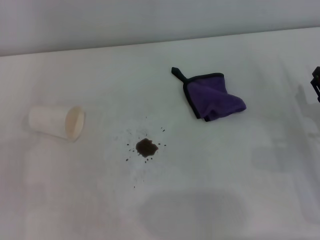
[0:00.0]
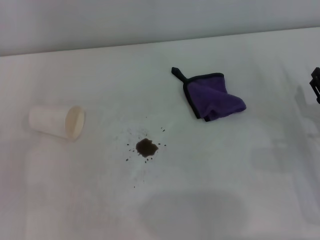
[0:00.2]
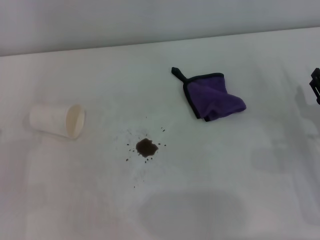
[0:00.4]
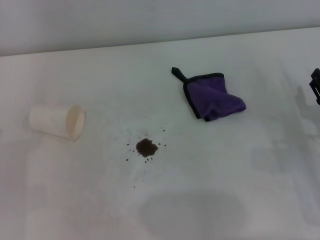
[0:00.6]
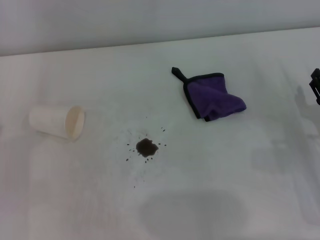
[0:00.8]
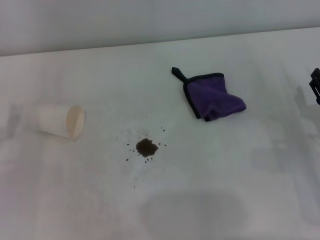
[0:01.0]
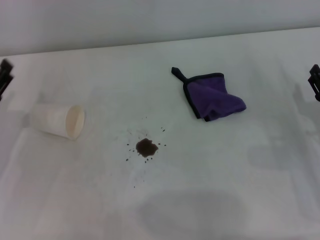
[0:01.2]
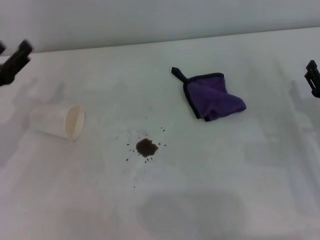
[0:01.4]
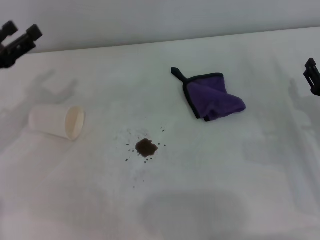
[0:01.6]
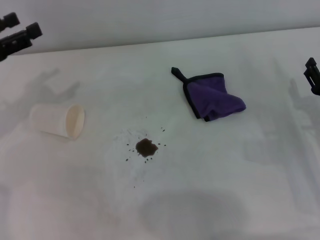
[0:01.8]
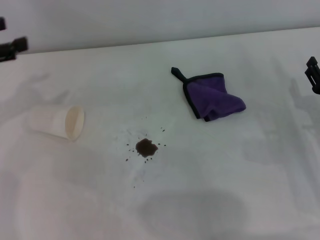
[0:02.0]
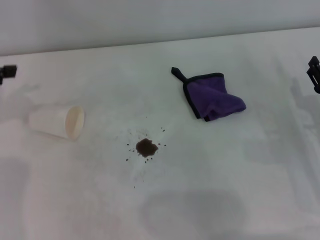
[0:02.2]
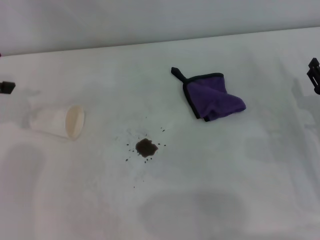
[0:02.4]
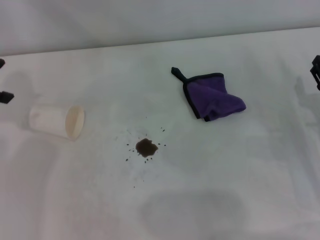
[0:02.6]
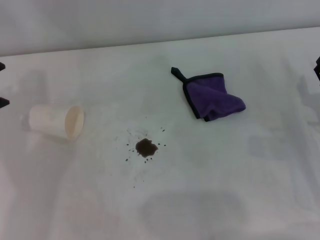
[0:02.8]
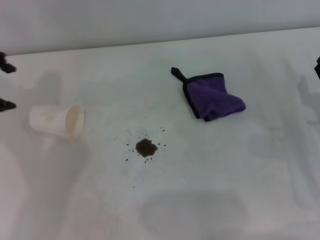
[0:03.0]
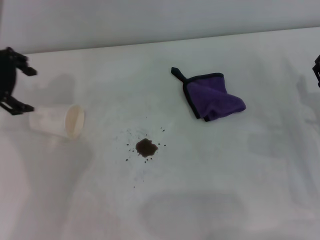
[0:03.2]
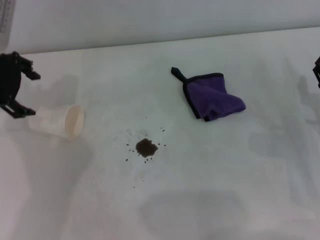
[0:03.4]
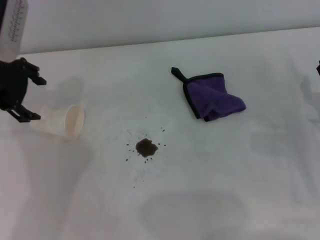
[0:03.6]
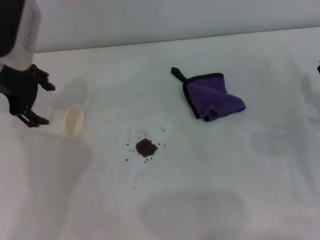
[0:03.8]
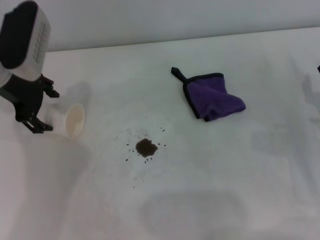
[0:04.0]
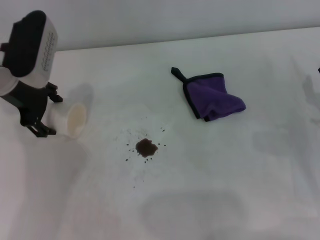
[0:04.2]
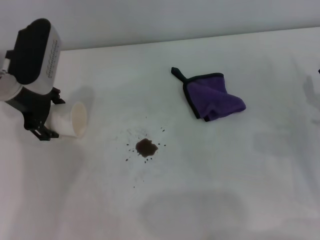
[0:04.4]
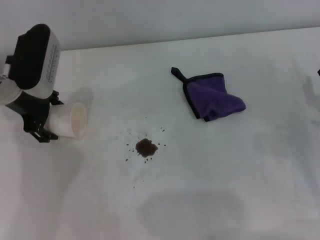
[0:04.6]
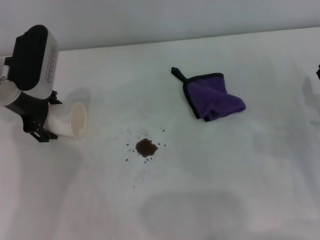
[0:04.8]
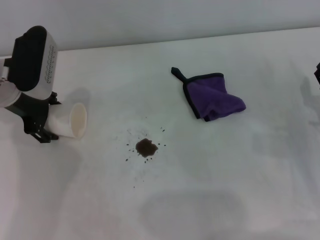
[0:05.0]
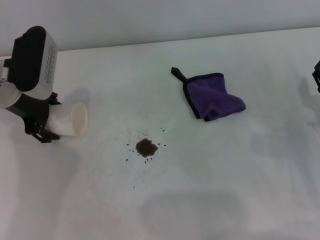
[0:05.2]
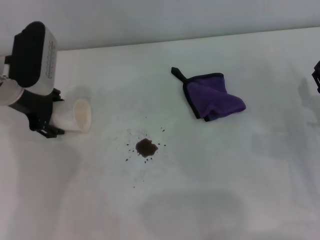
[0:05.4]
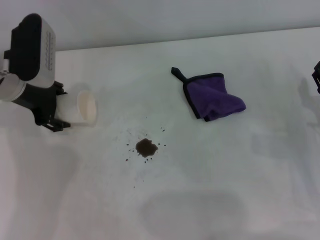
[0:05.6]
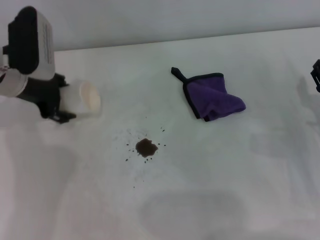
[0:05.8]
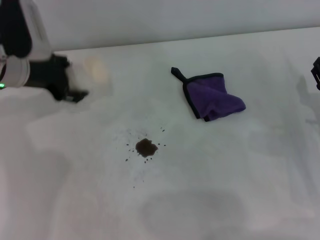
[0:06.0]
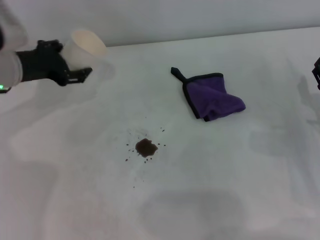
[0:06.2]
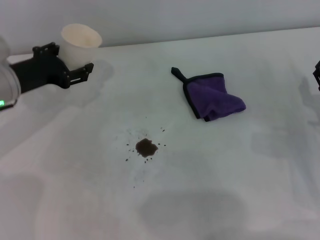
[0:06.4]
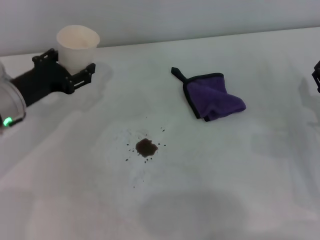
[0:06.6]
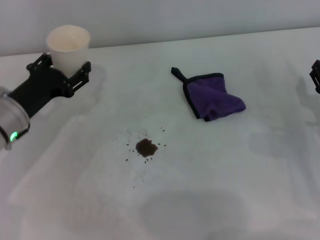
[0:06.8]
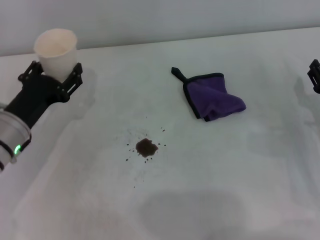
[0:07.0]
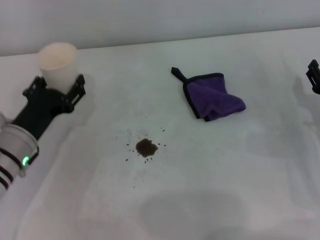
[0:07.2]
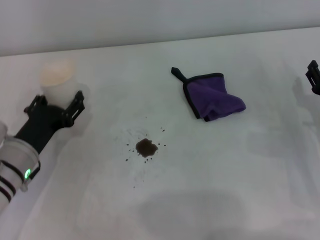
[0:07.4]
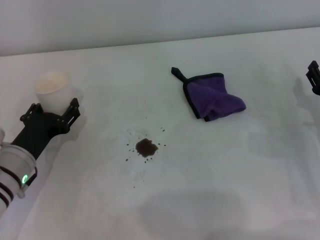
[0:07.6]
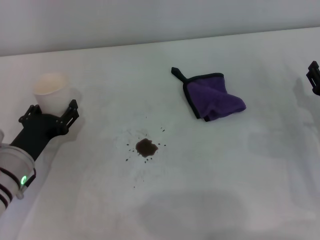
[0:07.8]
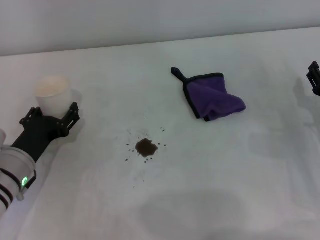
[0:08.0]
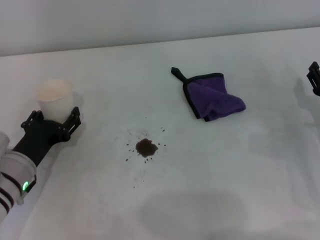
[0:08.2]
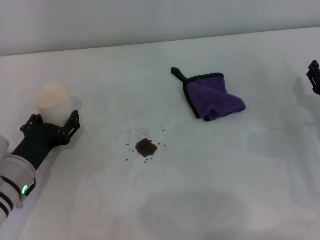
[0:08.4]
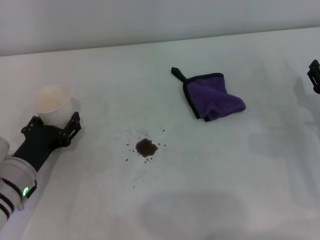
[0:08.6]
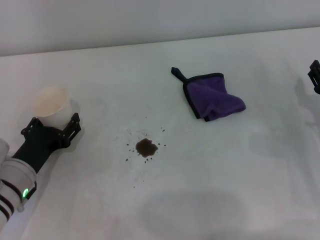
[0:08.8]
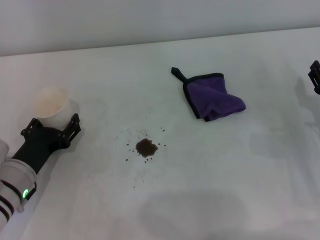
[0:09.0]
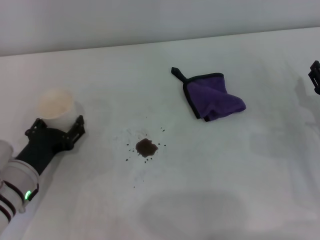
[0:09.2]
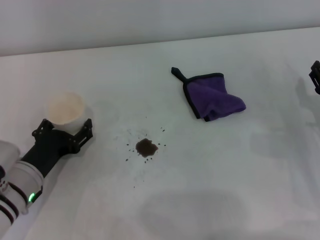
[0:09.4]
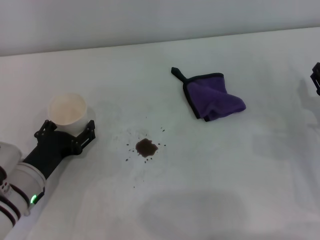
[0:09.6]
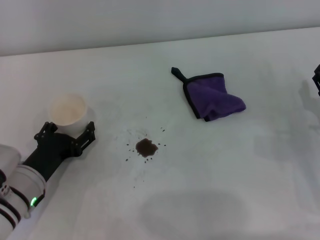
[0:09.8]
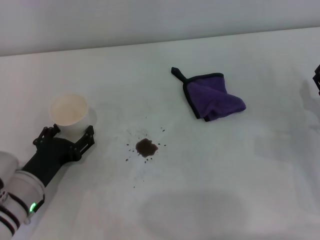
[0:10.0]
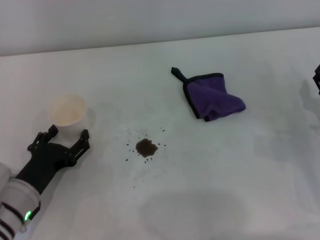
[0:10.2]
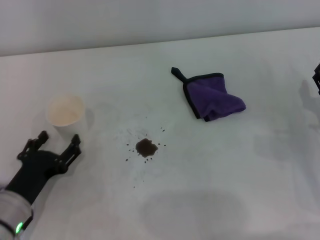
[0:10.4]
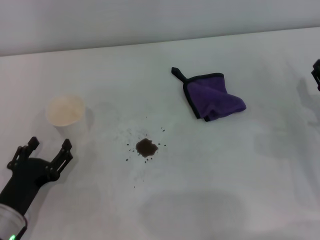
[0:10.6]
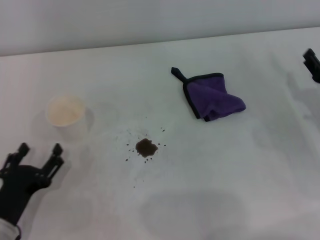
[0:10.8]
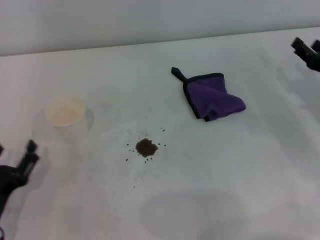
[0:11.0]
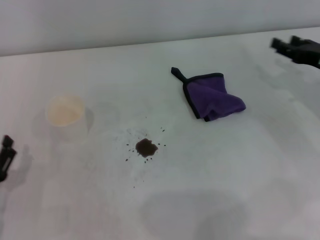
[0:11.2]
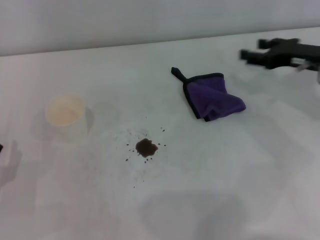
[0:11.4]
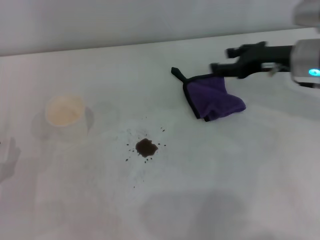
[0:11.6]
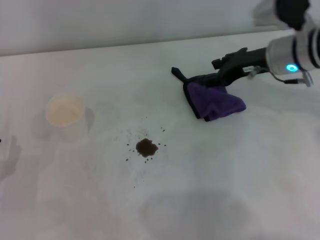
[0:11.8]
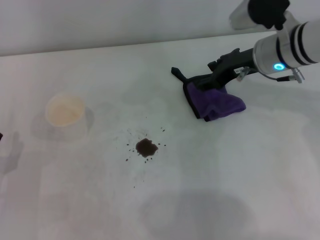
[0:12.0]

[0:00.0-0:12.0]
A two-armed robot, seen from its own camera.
Step, 0:00.0 to 0:04.6: Grasp the paper cup with the left gripper.
Step, 0:04.8 to 0:09.6: Stand the paper cup upright with the left gripper.
0:00.0 to 0:01.6: The left gripper travels forward and upward by about 15 cm.
0:01.6 to 0:03.0: The left gripper heads upward and forward, covering roughly 15 cm.
0:03.0 to 0:04.4: The left gripper goes some 10 cm downward and to the right.
0:06.0 to 0:07.6: The left gripper goes some 20 cm backward and downward.
0:07.6 to 0:09.0: The grippers stay close to where they were, moving slightly.
0:09.0 to 0:10.4: There are only small adjustments of the grippers.
0:10.4 to 0:12.0: The left gripper shifts roughly 5 cm to the left; the right gripper shifts approximately 20 cm forward, upward and to the left.

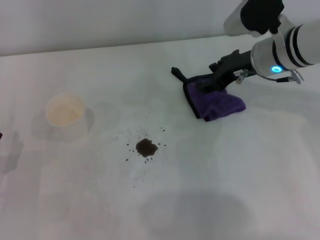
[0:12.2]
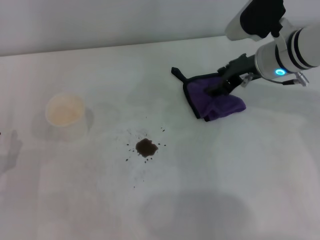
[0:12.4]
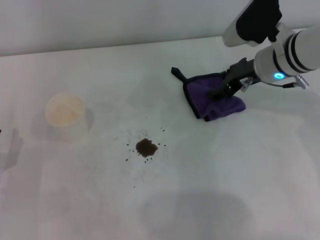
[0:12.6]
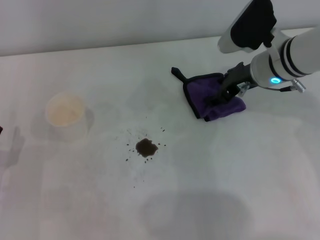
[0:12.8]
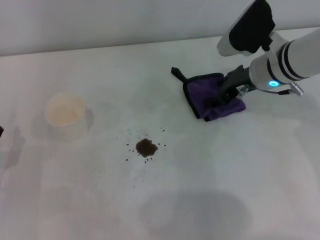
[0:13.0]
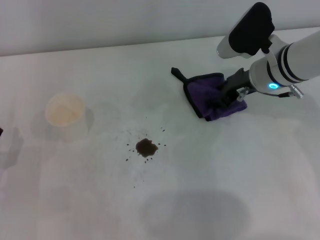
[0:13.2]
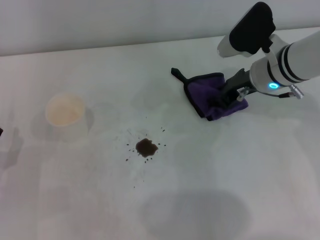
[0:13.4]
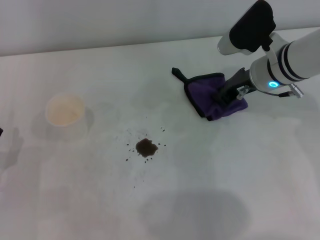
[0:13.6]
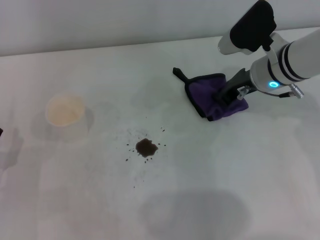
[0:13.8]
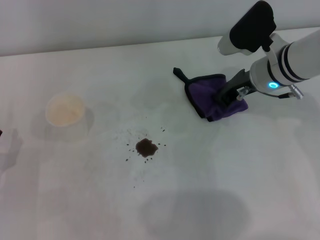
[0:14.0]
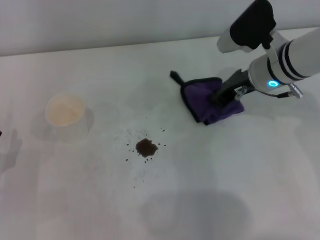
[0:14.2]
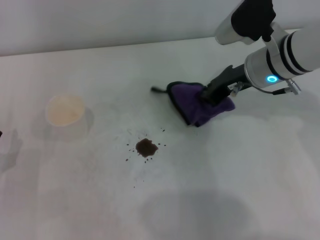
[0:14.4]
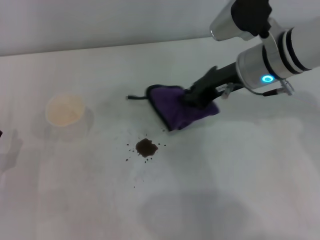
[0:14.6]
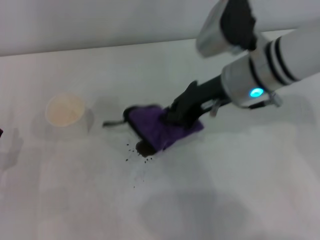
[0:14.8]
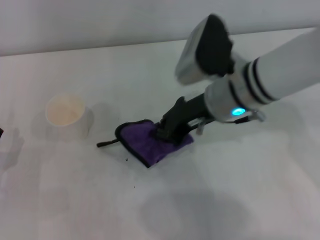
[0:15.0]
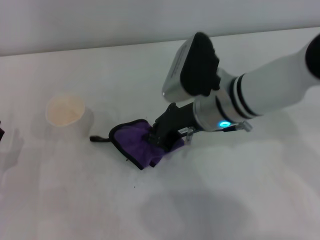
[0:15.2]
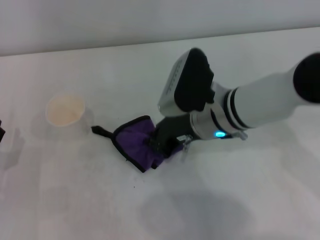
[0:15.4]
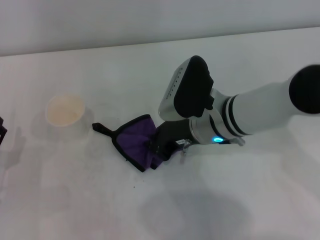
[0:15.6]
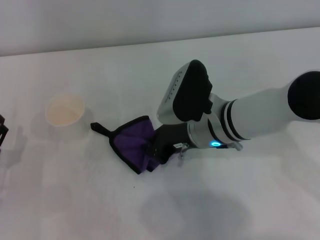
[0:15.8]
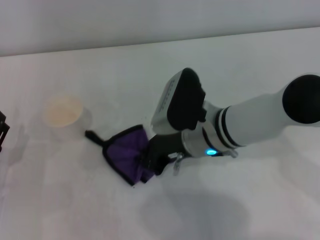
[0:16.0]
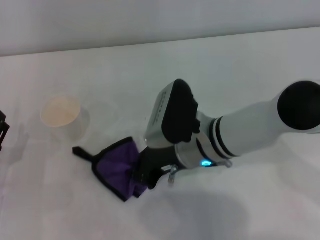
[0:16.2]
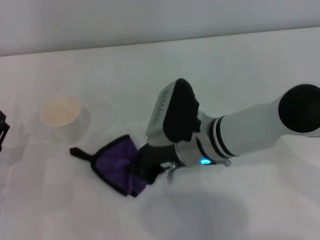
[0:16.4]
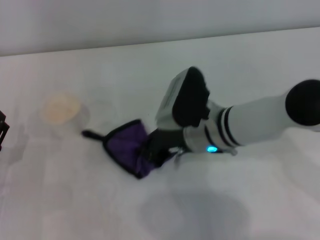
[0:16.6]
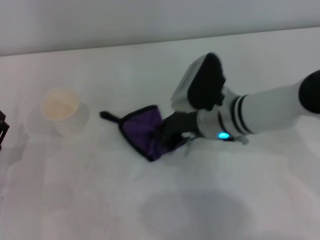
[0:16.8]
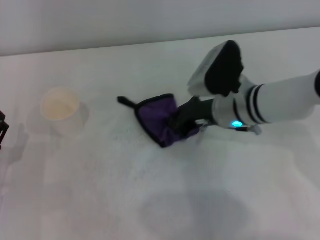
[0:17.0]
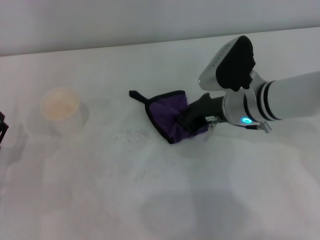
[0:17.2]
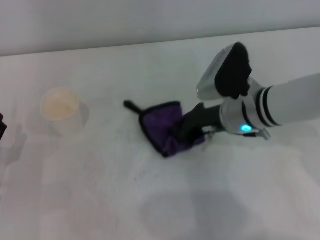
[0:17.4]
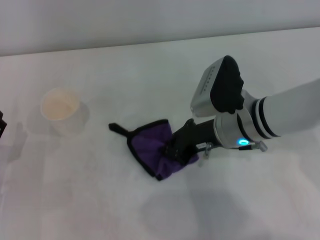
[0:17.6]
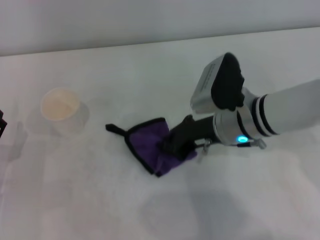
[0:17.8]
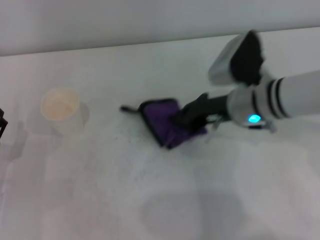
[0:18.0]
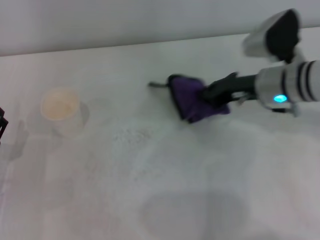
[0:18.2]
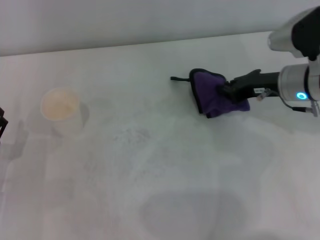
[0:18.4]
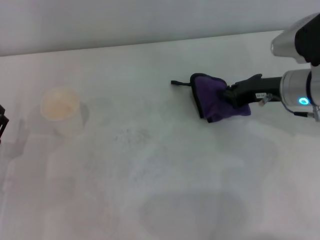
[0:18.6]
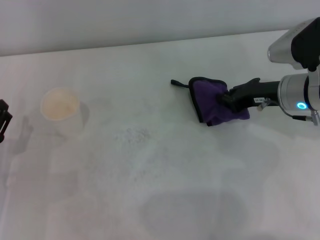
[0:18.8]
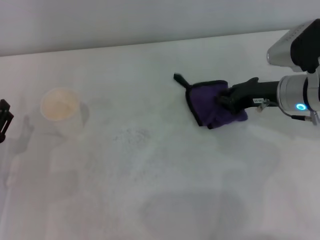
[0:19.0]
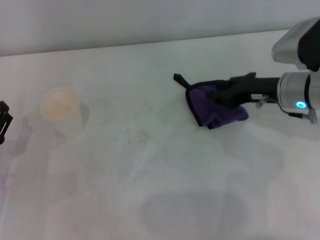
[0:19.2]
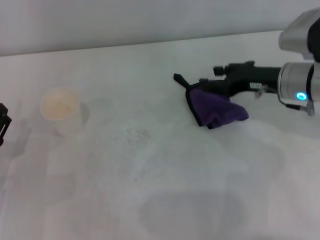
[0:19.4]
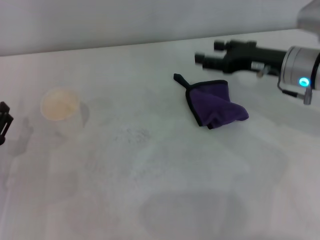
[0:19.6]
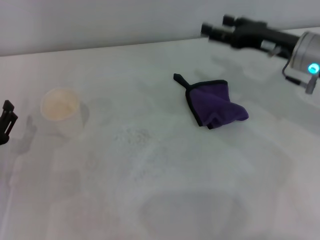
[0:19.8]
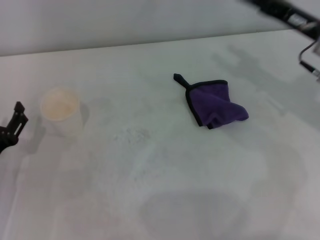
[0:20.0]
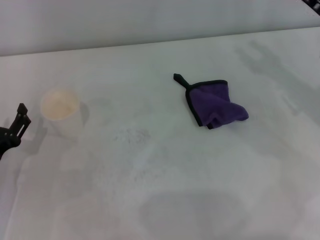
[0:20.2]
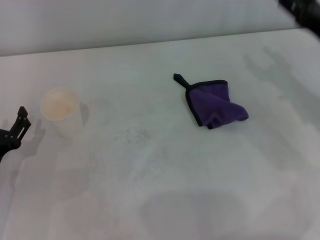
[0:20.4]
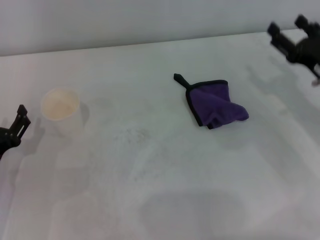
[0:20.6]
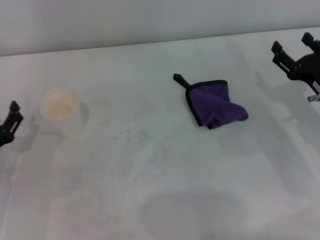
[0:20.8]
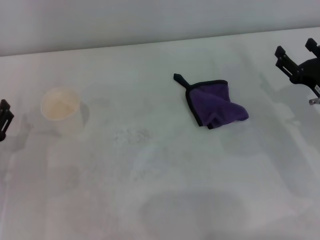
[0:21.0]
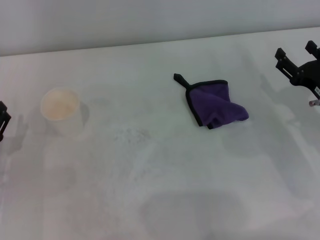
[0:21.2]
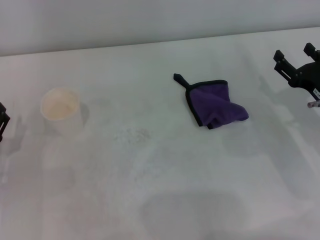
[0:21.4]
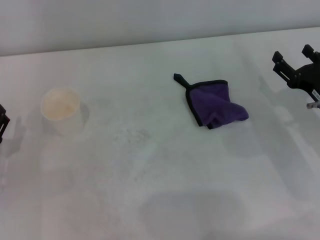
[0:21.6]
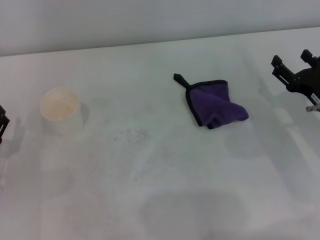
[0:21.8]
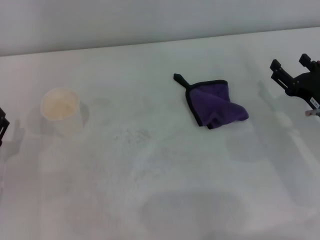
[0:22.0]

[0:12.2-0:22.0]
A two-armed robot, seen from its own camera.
Step, 0:14.0 to 0:18.2: Wipe the stains off the table with the right gripper.
Step, 0:18.6 to 0:19.0: Place the rag on the table with the right gripper.
0:12.2 to 0:13.6: The right gripper closes its fingers.
0:13.6 to 0:15.0: The right gripper is displaced to the left and backward by approximately 10 cm.
0:15.0 to 0:16.4: The right gripper goes roughly 5 cm downward.
0:16.4 to 0:17.8: The right gripper moves to the right, some 5 cm.
0:17.8 to 0:19.2: The right gripper travels to the right by roughly 10 cm.
0:19.2 to 0:20.6: The right gripper shifts some 5 cm to the right, and opens.
0:20.6 to 0:22.0: The grippers move only a little.
